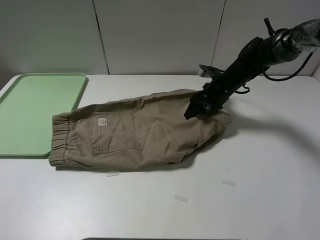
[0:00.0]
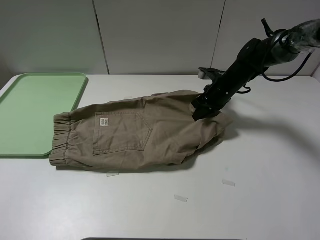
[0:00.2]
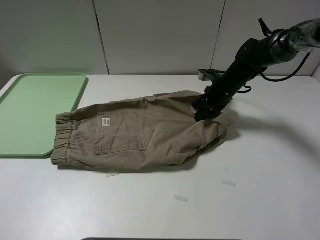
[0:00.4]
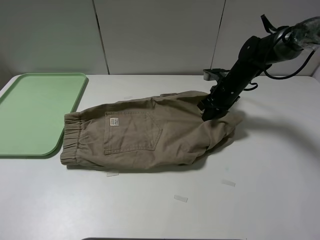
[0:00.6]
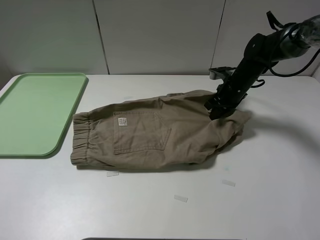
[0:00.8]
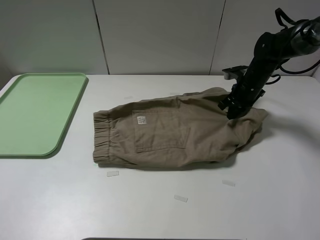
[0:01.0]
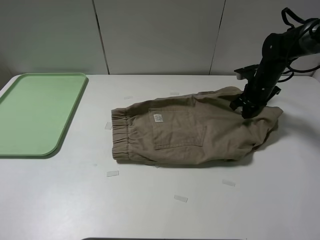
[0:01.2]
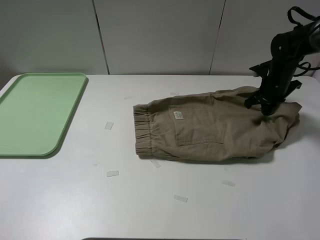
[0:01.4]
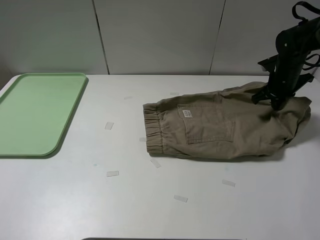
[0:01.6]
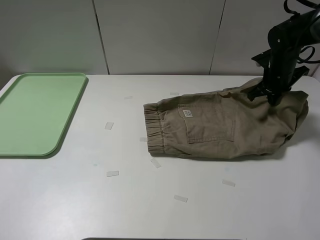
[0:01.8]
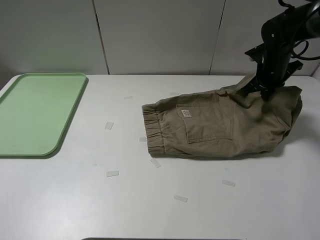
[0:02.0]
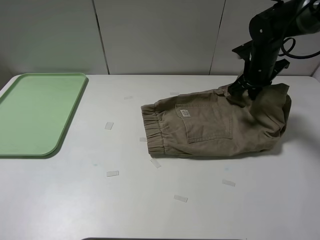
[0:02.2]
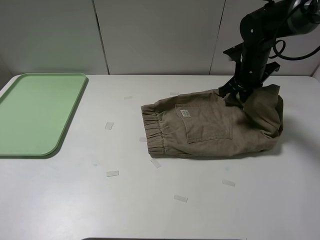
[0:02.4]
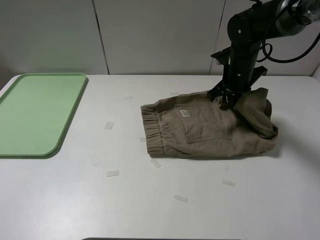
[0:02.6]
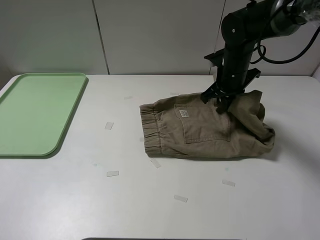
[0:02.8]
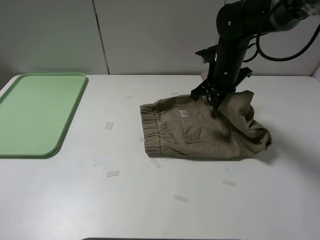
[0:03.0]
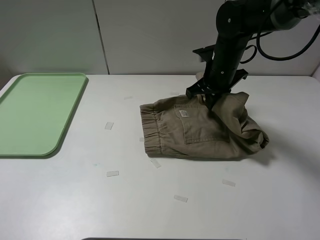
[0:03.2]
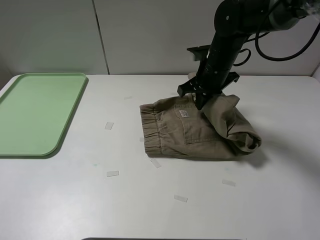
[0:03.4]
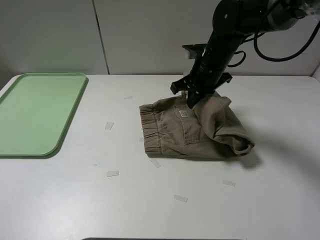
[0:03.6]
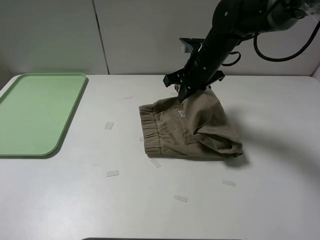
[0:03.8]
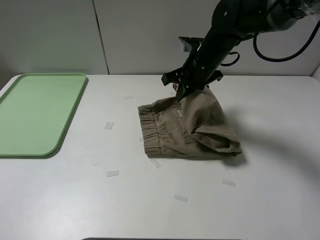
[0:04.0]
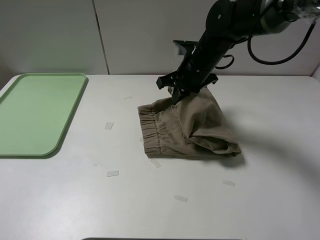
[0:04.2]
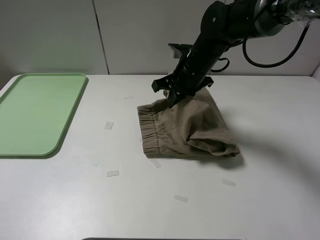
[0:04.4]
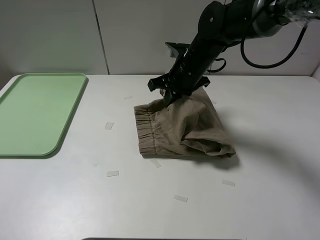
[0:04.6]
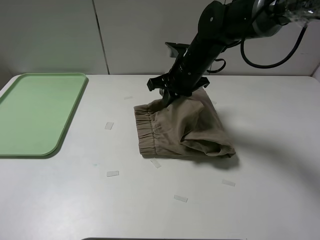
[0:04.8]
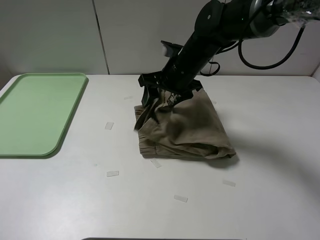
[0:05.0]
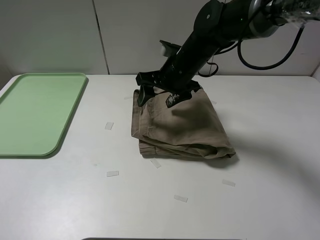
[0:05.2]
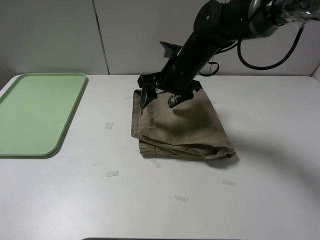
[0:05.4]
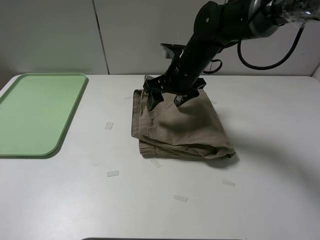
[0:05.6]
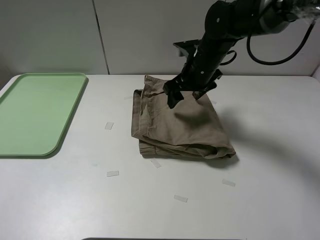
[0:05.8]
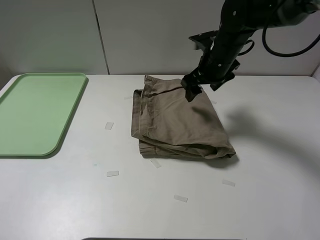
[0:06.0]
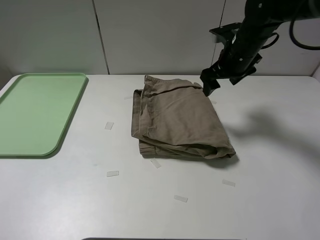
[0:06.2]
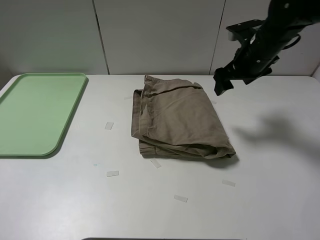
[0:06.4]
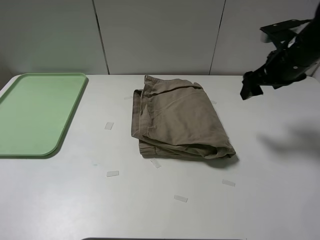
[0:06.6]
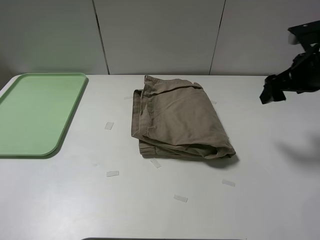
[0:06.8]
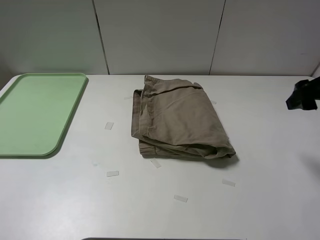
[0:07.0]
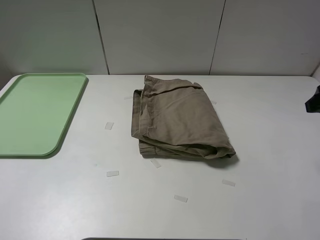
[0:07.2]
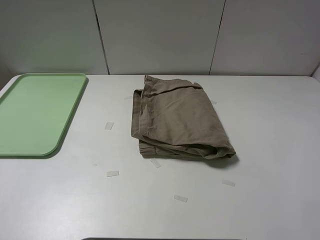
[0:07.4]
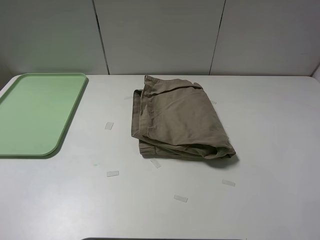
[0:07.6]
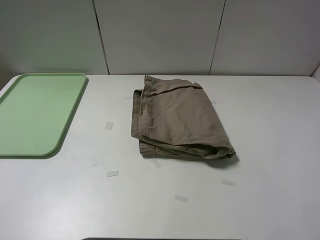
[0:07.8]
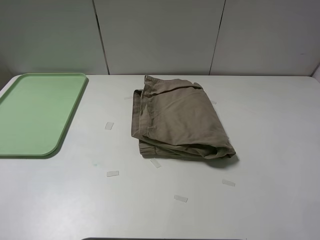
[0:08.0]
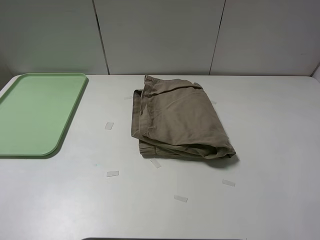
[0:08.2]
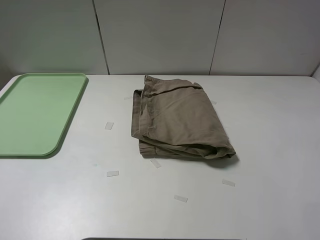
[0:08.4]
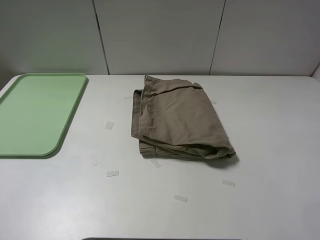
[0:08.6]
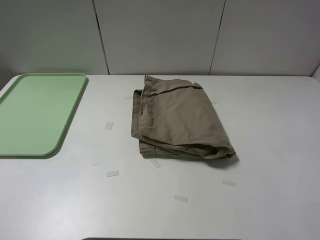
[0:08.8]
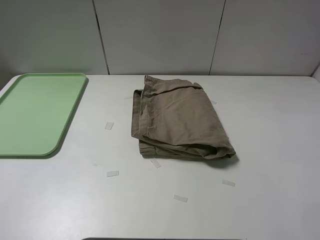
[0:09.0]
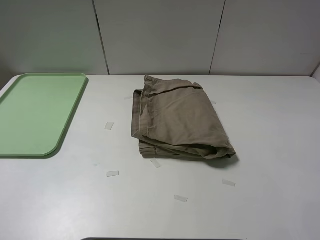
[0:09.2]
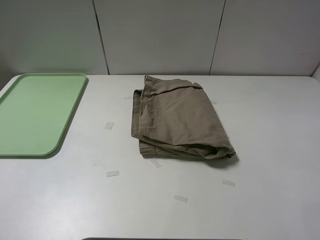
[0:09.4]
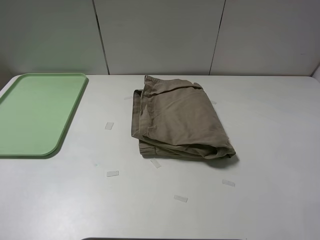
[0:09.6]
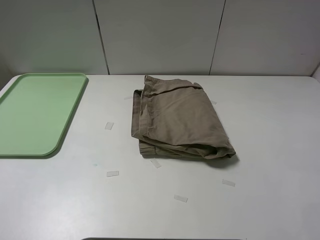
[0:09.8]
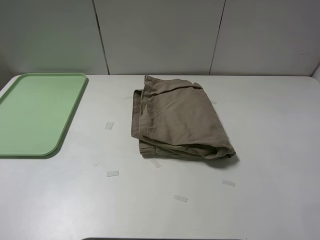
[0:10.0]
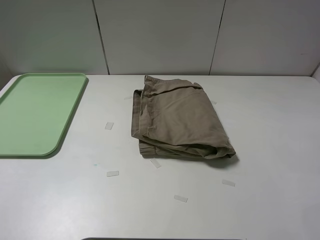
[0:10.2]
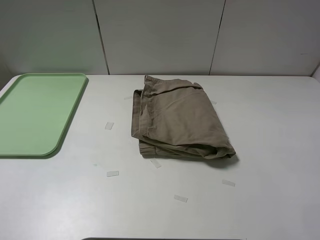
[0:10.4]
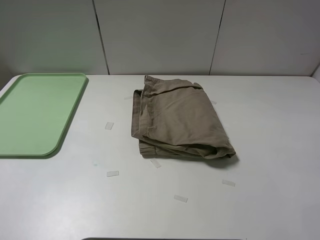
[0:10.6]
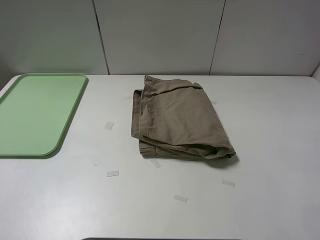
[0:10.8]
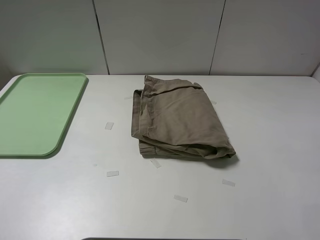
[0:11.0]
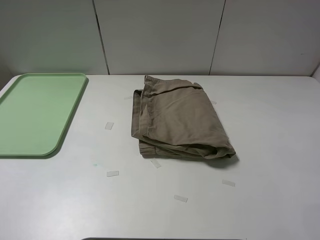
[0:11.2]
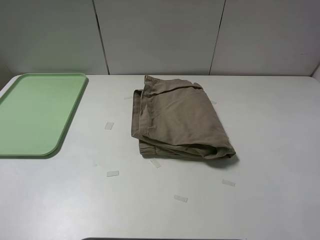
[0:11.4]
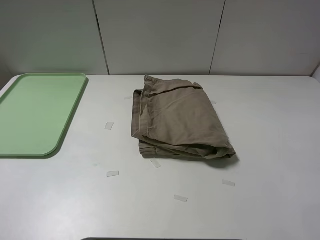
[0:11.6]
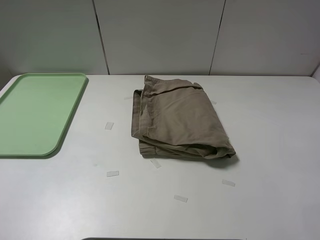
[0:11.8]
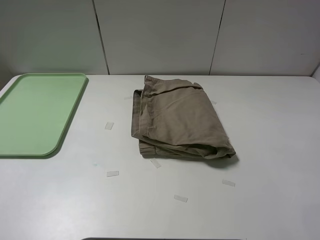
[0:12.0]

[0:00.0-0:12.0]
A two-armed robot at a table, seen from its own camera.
Task of the whole recording: fold the khaki jeans in half with two grippers, then fold them in half again, and use the left claw to place the folded fold khaki jeans on the tray.
Step, 0:00.2 to 0:05.2: Fold the khaki trousers from right to left with the right gripper.
0:00.0 to 0:01.6: The right gripper moves to the right, approximately 15 cm, and closes.
0:01.6 to 0:03.0: The right gripper shifts roughly 20 cm to the left.
0:03.0 to 0:04.4: The right gripper shifts approximately 5 cm to the left.
0:04.4 to 0:06.0: The right gripper goes about 5 cm to the right, and opens.
0:06.0 to 0:07.6: The right gripper is displaced backward, to the right and upward by roughly 35 cm.
0:10.4 to 0:12.0: Both grippers stay about where they are.

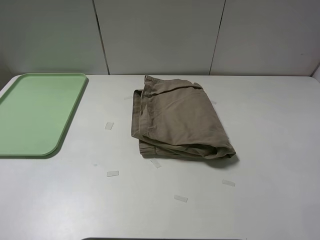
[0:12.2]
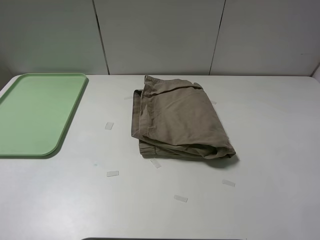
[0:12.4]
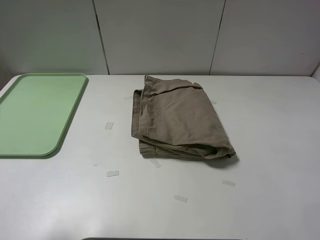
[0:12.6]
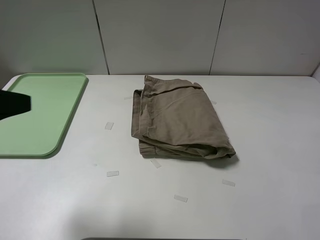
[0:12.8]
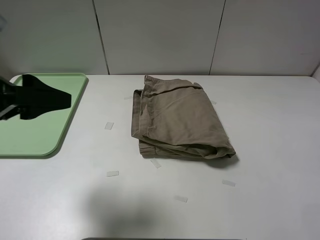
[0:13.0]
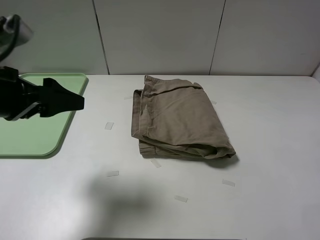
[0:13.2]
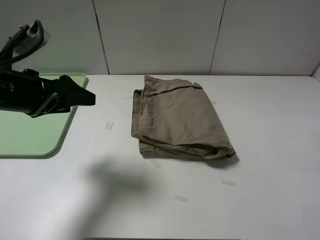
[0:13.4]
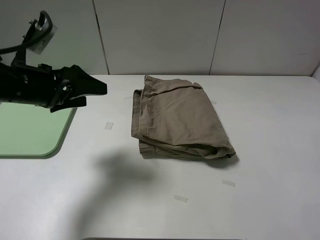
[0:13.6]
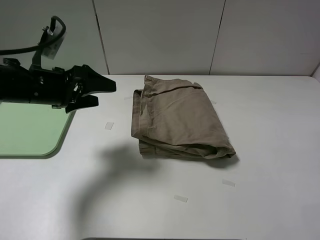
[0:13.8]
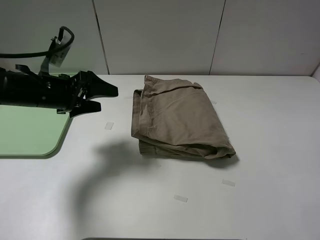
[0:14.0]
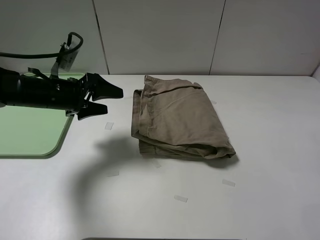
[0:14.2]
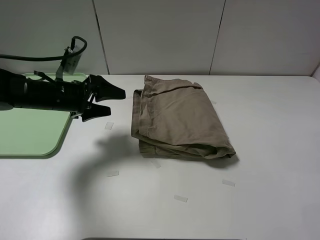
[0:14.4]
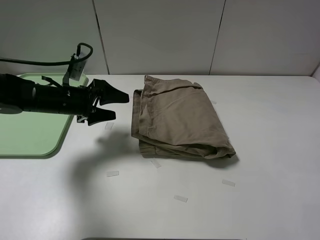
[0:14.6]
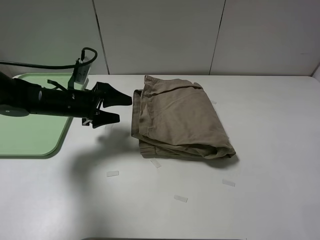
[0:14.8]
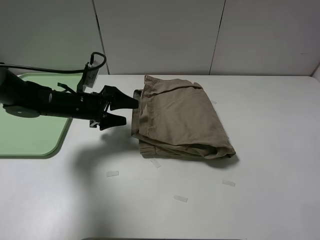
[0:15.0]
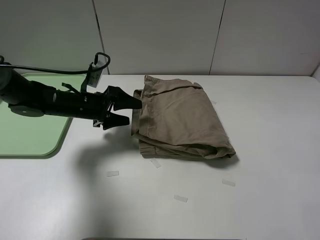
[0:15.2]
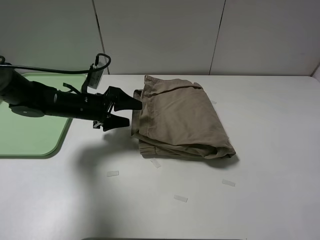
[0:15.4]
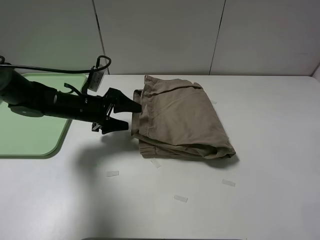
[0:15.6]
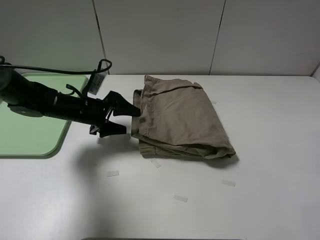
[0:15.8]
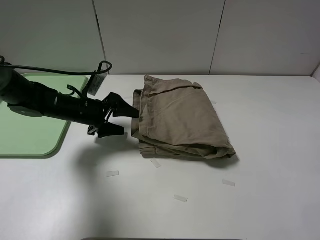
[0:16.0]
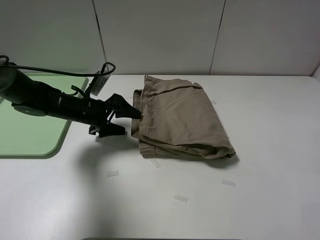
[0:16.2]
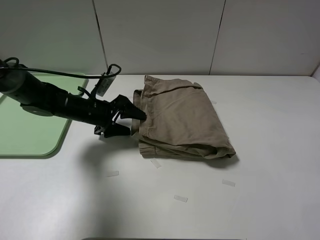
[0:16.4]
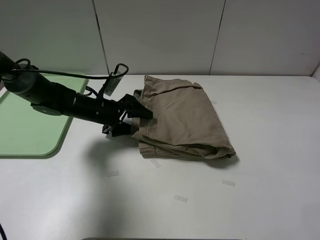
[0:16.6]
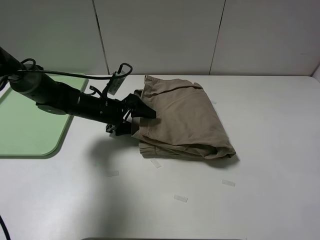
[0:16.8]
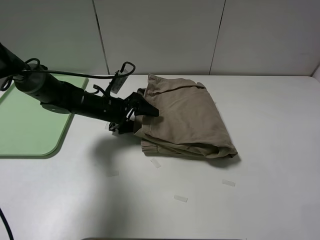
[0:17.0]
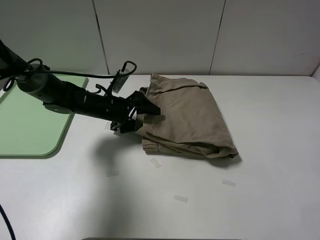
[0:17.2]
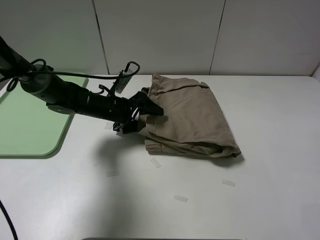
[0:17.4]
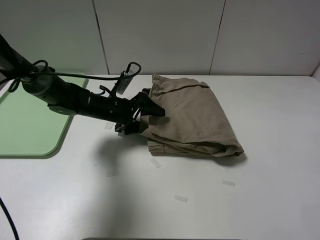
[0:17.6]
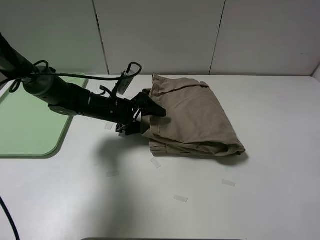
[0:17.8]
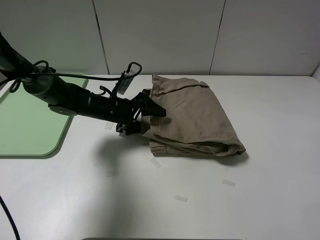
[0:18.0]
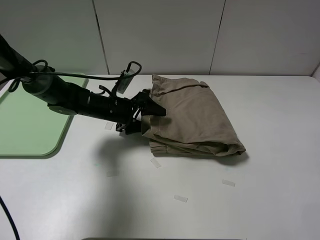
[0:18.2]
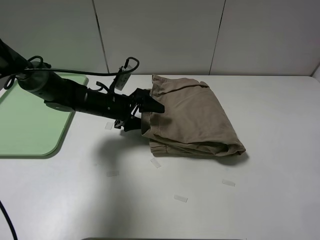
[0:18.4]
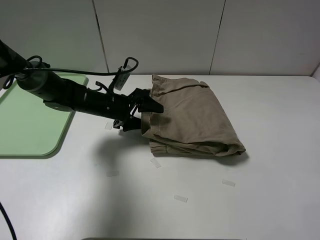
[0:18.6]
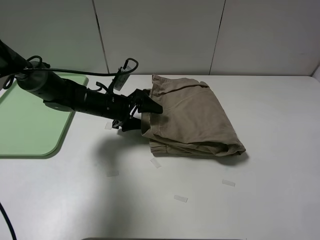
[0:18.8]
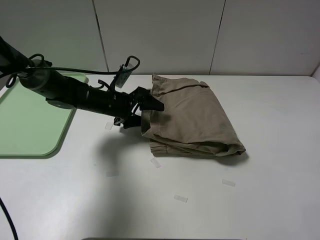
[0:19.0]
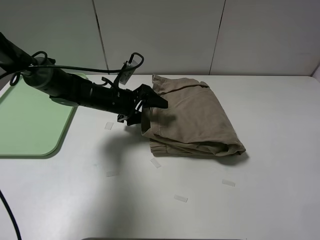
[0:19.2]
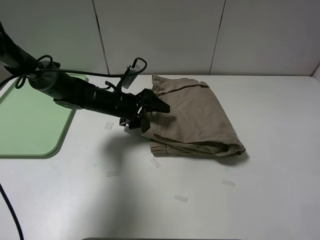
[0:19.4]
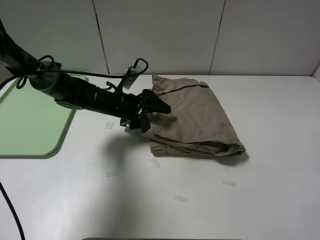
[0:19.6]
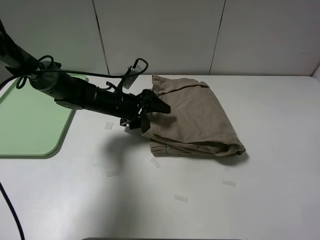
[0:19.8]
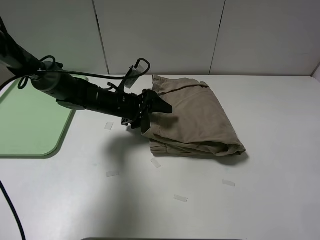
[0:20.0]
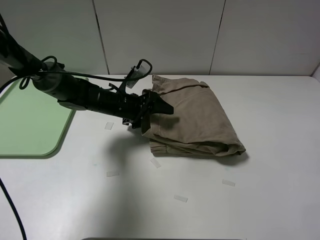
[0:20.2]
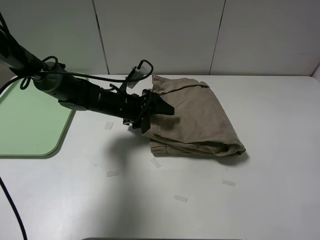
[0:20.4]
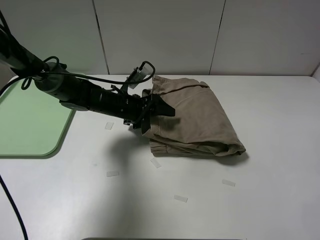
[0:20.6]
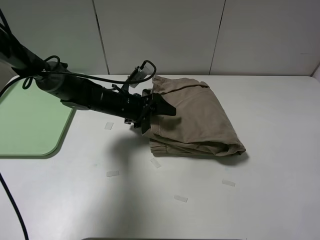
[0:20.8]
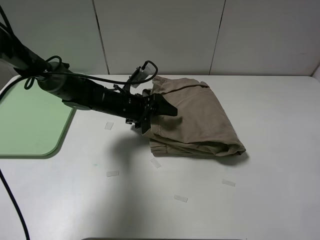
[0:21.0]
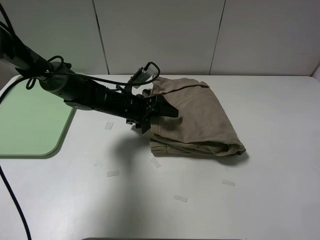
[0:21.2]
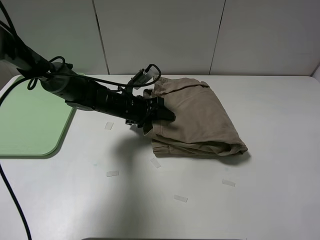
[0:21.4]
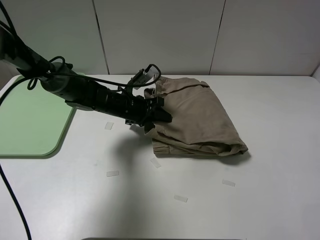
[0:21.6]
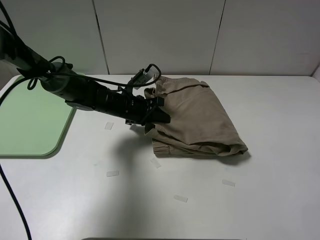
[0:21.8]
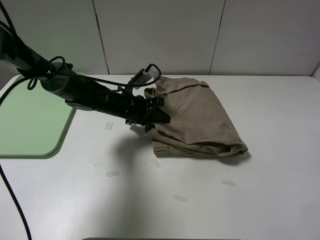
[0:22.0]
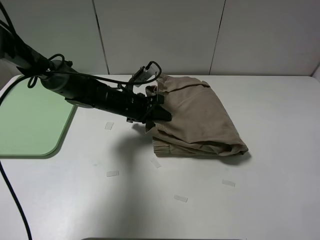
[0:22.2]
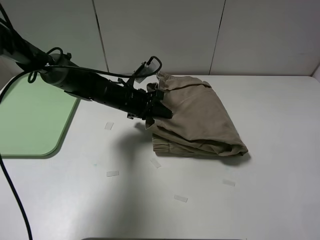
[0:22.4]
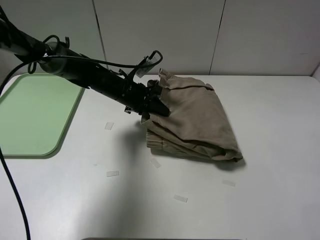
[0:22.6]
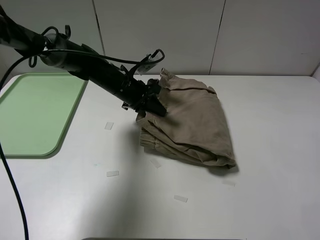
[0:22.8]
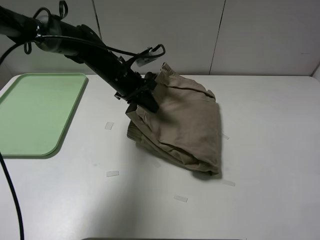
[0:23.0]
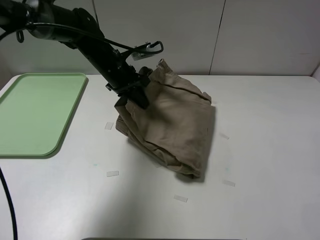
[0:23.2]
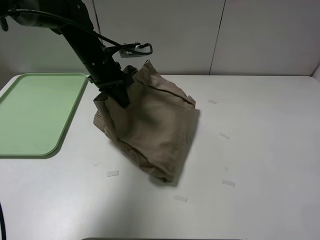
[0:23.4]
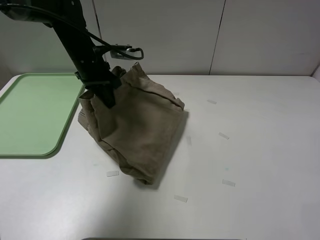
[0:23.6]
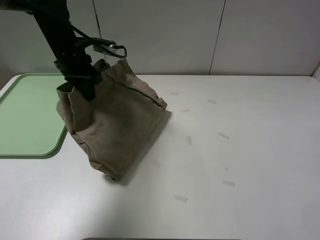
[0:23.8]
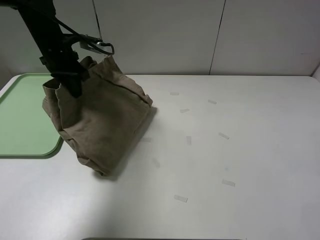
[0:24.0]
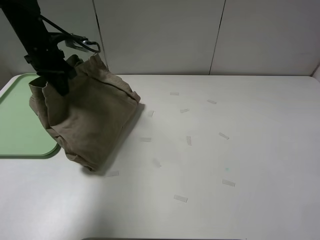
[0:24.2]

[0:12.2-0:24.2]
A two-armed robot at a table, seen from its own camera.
Task of the whole recording: fold the khaki jeans in half with two grippers, then fold them in half again, and use the left claw to place the folded fold khaki jeans on the tray.
Step, 0:12.2 to 0:21.6: Grasp the khaki trousers with the left gripper.
0:12.2 to 0:13.8: The left gripper moves forward and downward, some 30 cm.
0:13.8 to 0:15.2: The left gripper moves downward and forward, approximately 10 cm.
0:15.2 to 0:16.6: The grippers make only small movements.
0:16.6 to 0:19.8: The grippers make only small movements.
0:19.8 to 0:21.2: The grippers stay close to where they were, moving slightly.
0:21.2 to 0:22.6: The left gripper closes.
0:22.6 to 0:24.2: The left gripper moves to the left and upward, some 20 cm.
